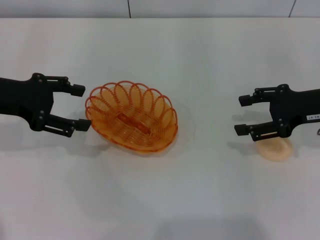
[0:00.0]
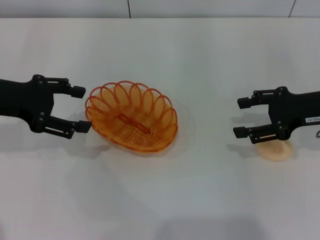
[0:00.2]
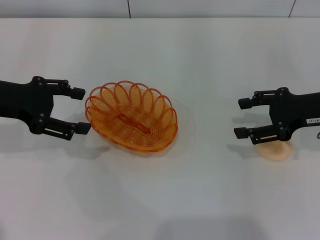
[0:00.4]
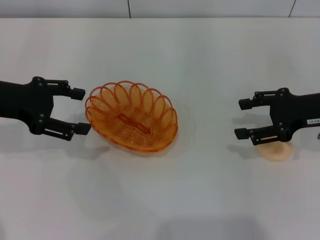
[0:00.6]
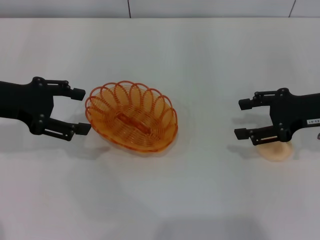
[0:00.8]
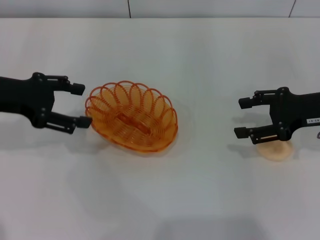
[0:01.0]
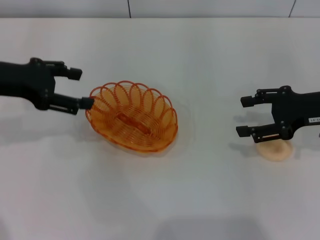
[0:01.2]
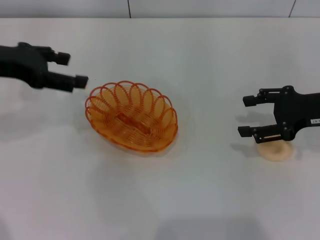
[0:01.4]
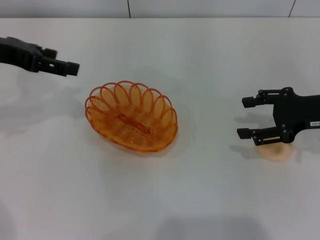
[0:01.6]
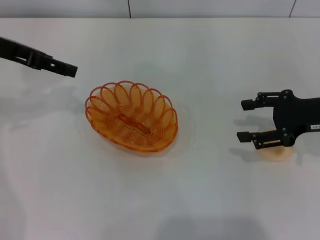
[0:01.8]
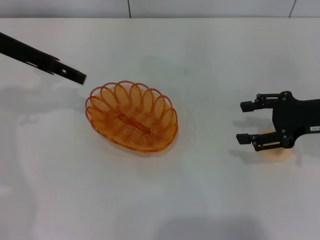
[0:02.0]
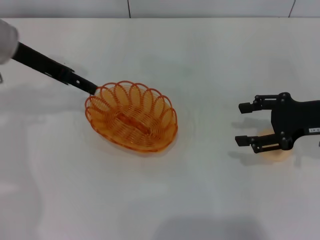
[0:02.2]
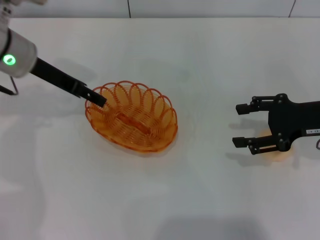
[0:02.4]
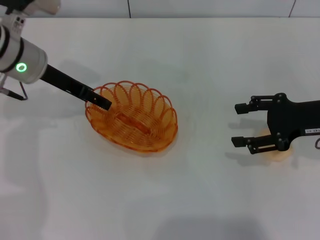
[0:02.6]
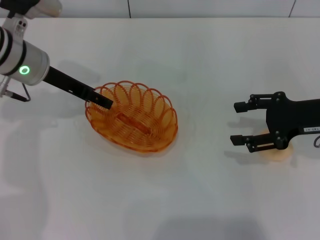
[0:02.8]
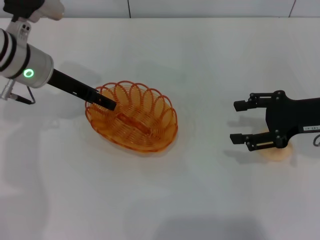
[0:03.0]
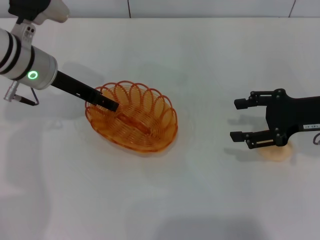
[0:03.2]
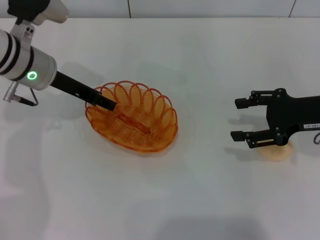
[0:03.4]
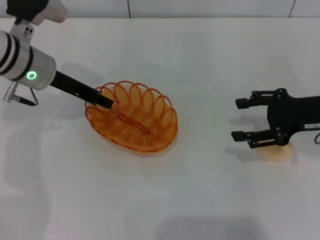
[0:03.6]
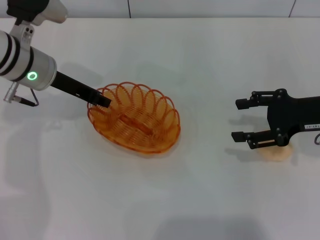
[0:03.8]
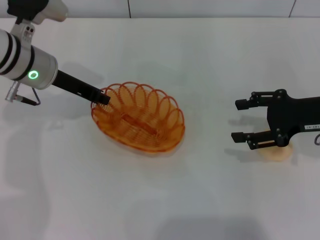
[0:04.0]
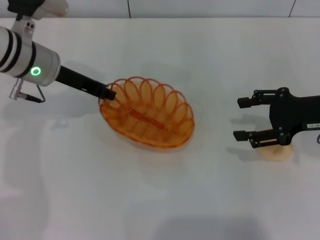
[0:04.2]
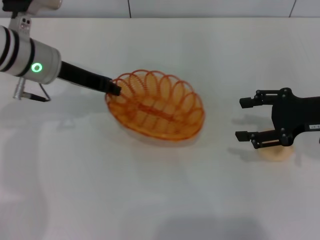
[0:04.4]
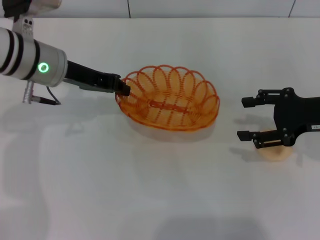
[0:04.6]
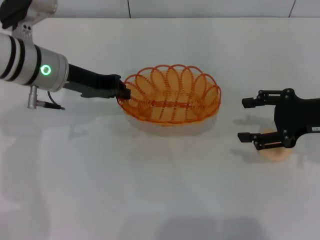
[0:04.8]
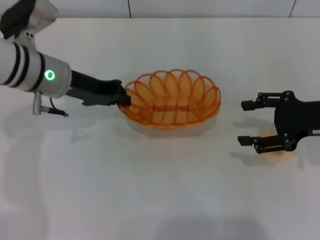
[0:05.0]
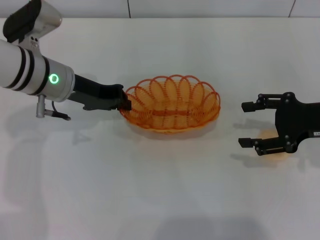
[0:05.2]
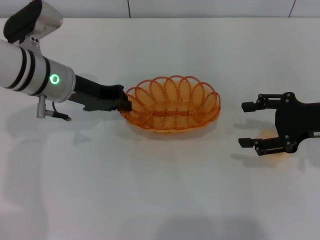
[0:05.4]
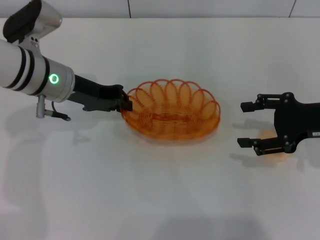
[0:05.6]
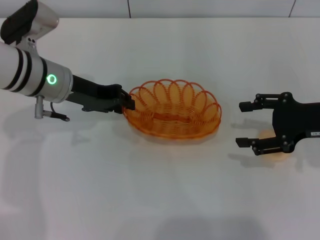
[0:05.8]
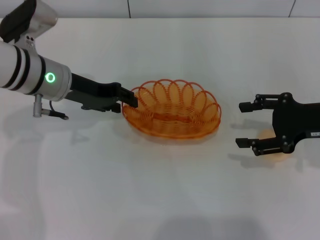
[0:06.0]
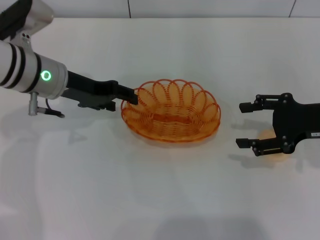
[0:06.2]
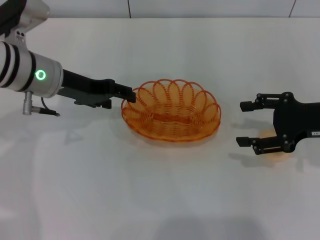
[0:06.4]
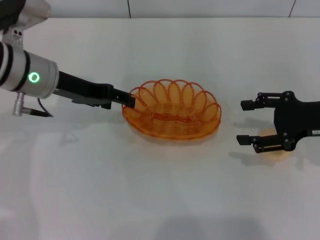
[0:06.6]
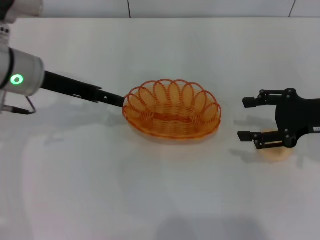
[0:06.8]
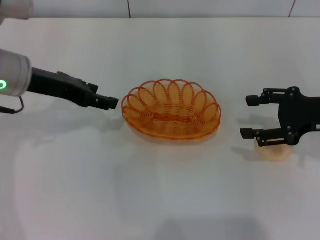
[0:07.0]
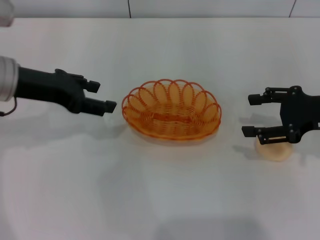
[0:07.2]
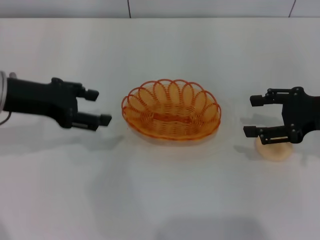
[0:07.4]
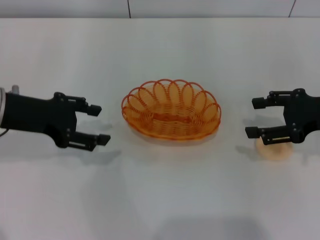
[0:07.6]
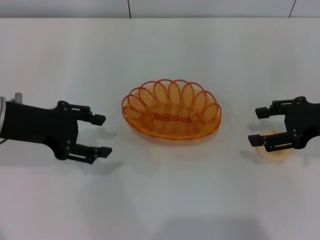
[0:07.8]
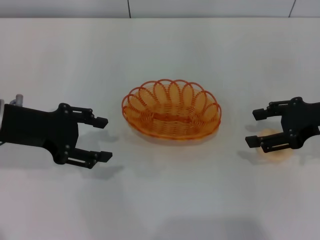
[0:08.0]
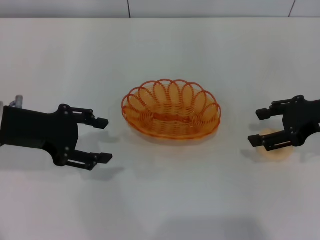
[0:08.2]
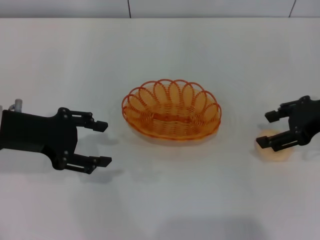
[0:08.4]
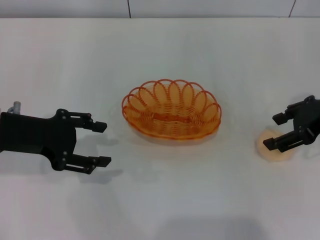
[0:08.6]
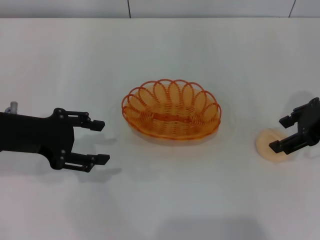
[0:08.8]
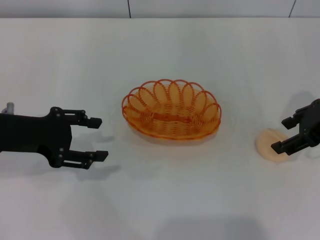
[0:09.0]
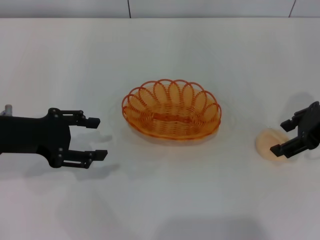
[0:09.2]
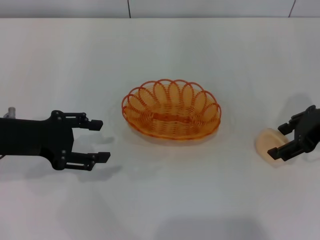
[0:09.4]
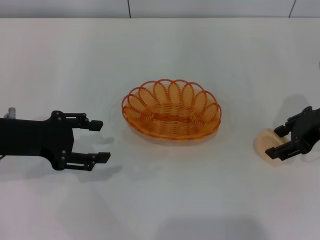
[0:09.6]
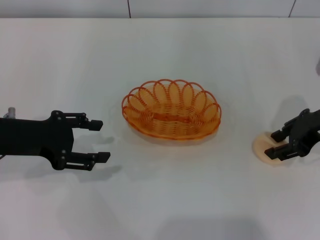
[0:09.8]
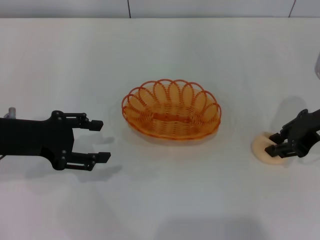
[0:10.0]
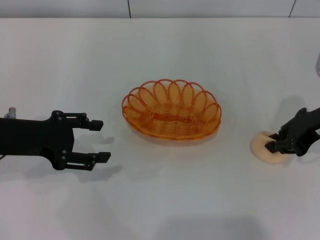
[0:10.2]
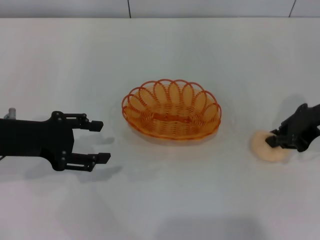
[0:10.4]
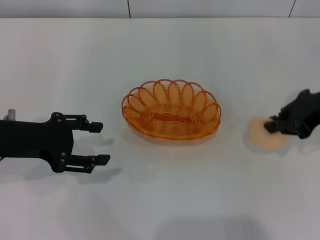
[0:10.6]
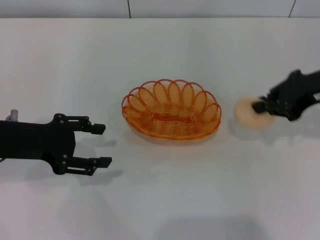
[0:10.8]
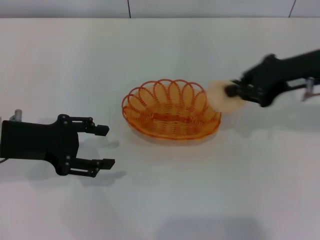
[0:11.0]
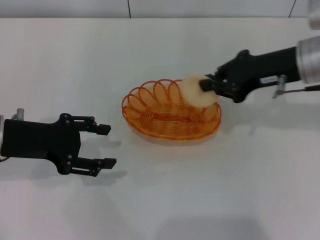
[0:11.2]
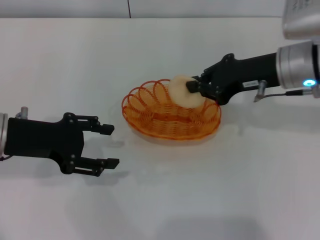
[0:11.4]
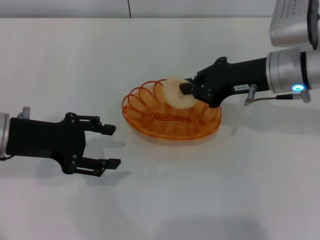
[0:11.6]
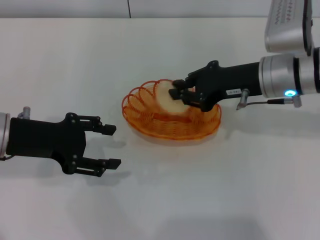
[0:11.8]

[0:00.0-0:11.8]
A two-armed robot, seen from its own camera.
Step, 0:00.0 to 0:04.6: Pick up the basket with the left gripper.
Step, 0:04.8 to 0:07.4: Place the basket in the center of view with the left gripper.
Step, 0:07.6 to 0:10.6: Pick up the egg yolk pastry with the right gripper.
0:00.0 to 0:01.4: The grippers move only a little.
0:01.4 to 0:03.0: The left gripper moves to the right, downward and forward, some 10 cm.
0:03.0 to 0:04.4: The left gripper closes its fingers.
0:06.0 to 0:07.4: The left gripper shifts roughly 10 cm to the left and backward, and opens its fingers.
0:08.8 to 0:10.4: The right gripper closes its fingers.
0:10.4 to 0:11.8: The right gripper moves to the left, roughly 10 cm.

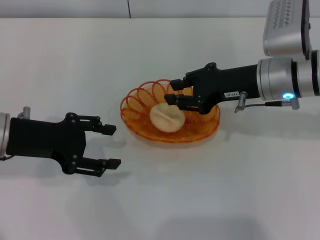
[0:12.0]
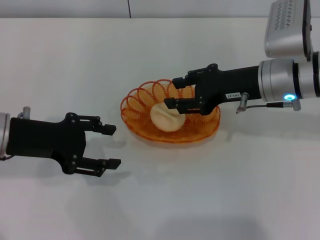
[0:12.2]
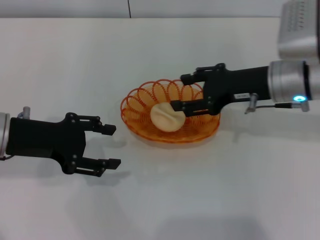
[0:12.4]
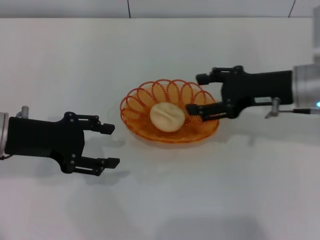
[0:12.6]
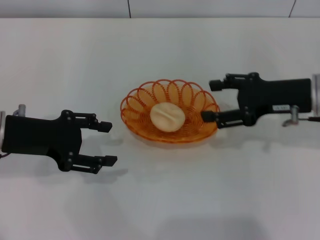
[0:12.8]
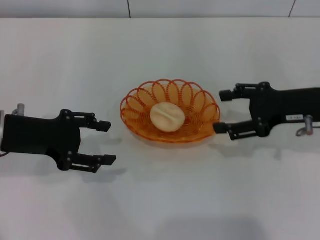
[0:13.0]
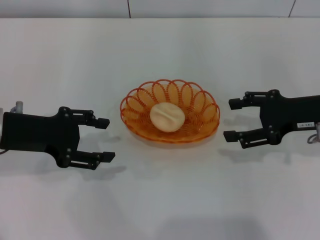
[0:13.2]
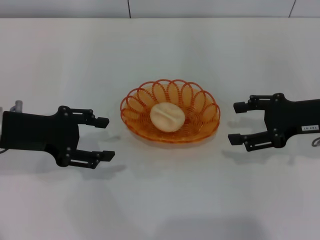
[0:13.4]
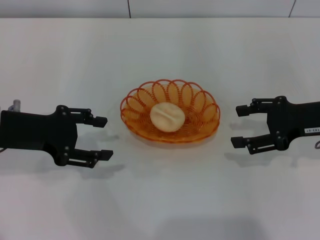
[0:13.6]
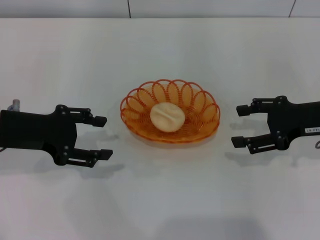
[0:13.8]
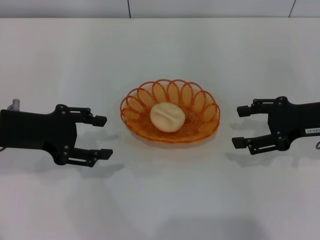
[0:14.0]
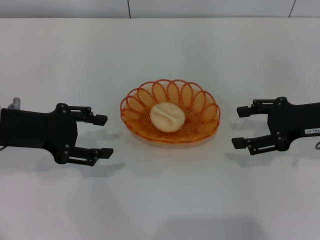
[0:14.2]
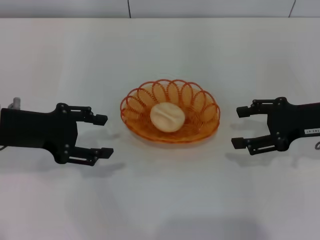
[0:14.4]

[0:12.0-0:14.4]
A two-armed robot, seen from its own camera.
0:12.0 to 0:13.2: The right gripper shifts some 10 cm to the right, and opens.
0:13.2 to 0:14.4: The two grippers keep their place.

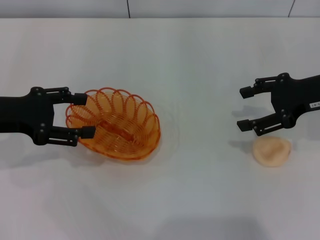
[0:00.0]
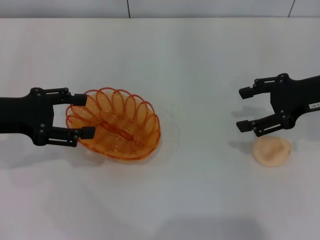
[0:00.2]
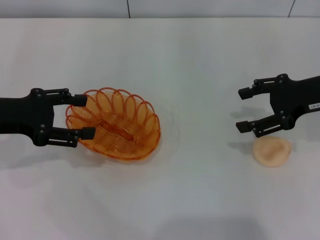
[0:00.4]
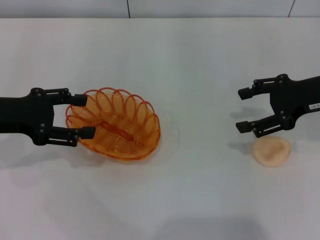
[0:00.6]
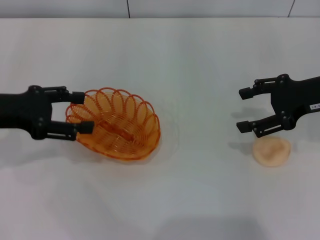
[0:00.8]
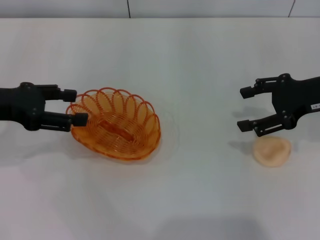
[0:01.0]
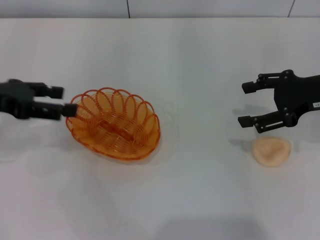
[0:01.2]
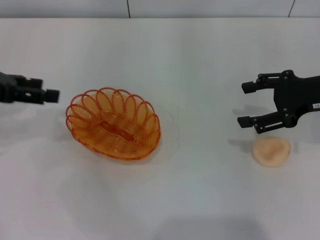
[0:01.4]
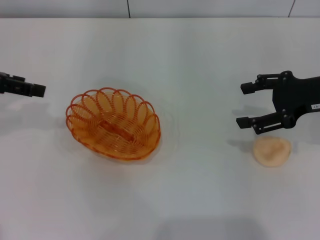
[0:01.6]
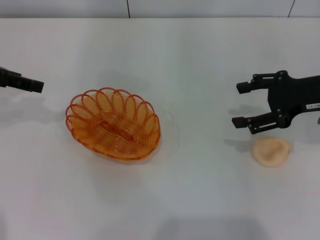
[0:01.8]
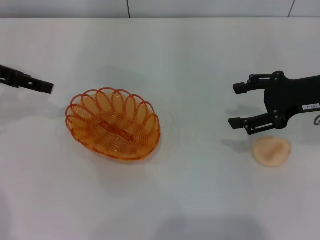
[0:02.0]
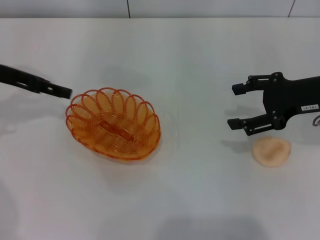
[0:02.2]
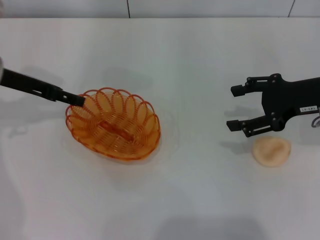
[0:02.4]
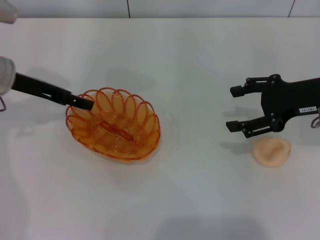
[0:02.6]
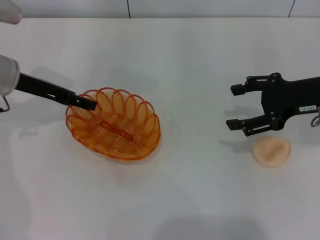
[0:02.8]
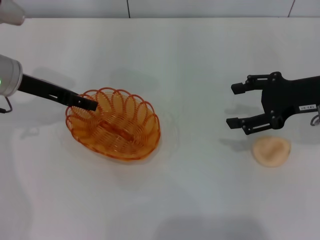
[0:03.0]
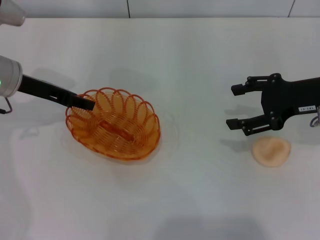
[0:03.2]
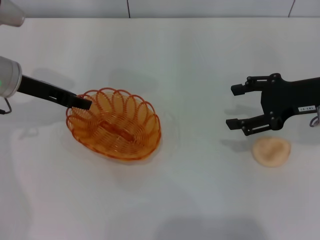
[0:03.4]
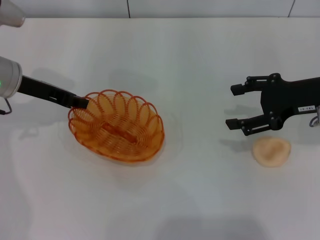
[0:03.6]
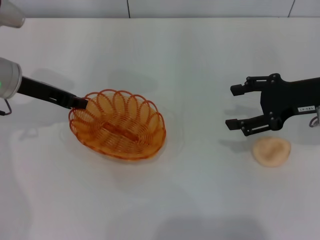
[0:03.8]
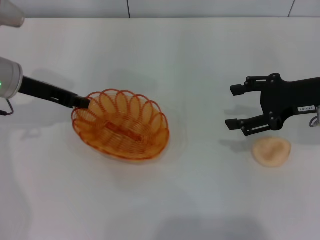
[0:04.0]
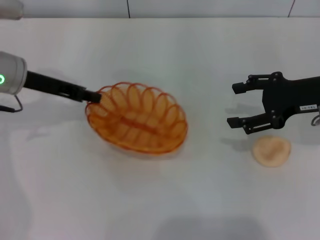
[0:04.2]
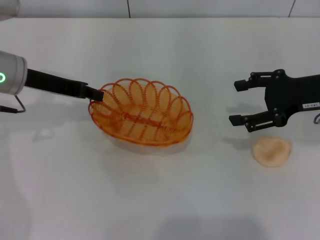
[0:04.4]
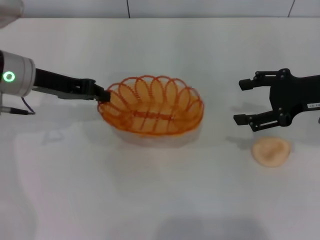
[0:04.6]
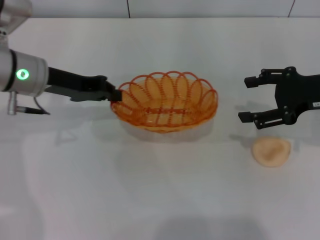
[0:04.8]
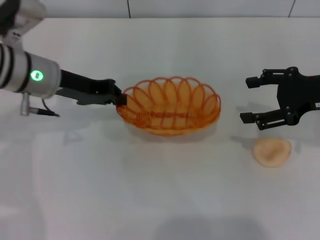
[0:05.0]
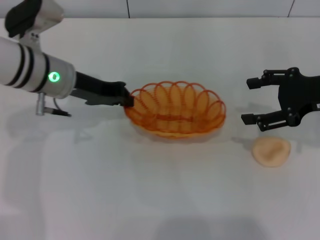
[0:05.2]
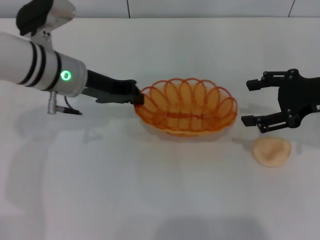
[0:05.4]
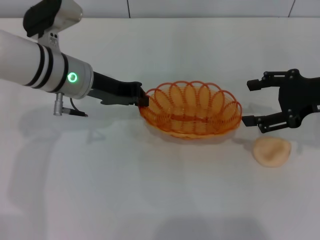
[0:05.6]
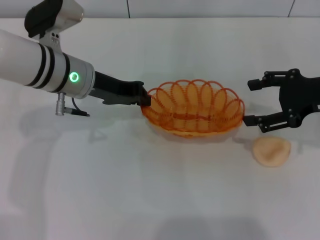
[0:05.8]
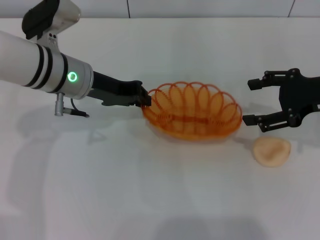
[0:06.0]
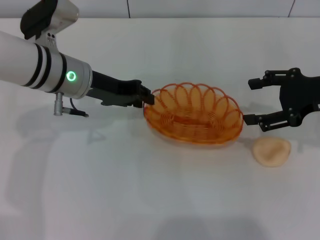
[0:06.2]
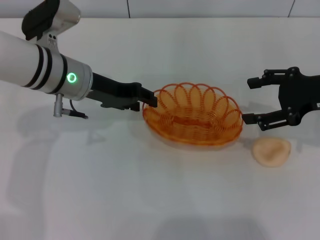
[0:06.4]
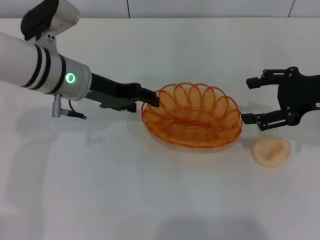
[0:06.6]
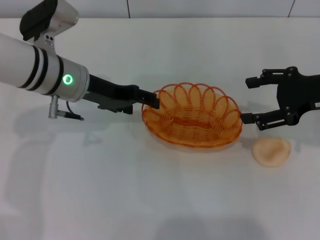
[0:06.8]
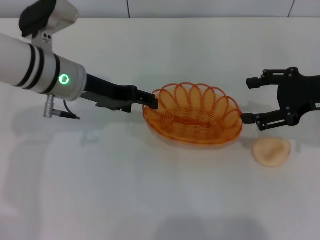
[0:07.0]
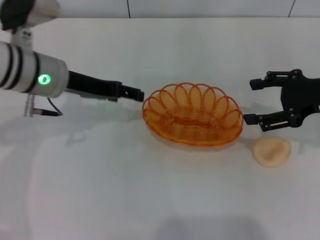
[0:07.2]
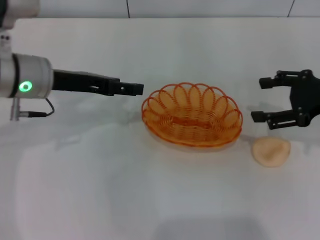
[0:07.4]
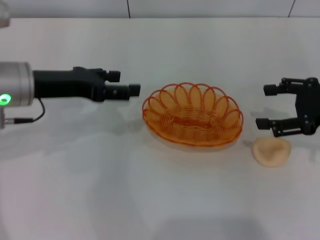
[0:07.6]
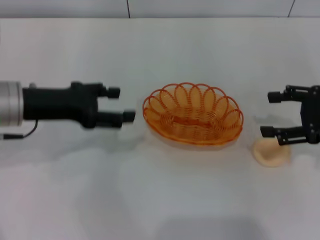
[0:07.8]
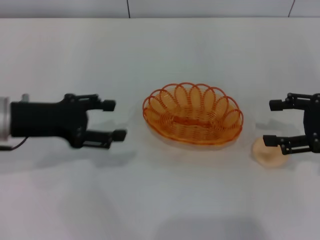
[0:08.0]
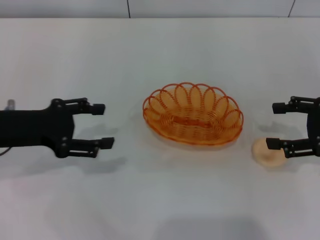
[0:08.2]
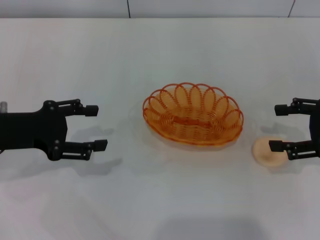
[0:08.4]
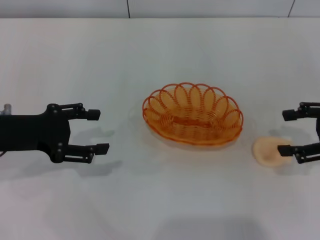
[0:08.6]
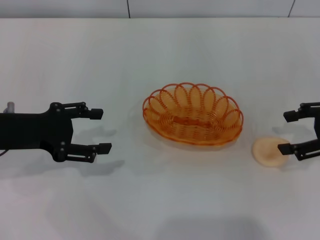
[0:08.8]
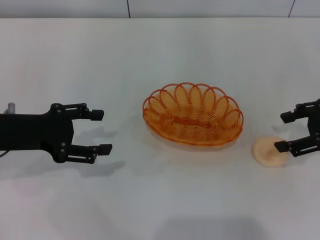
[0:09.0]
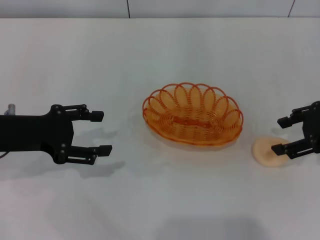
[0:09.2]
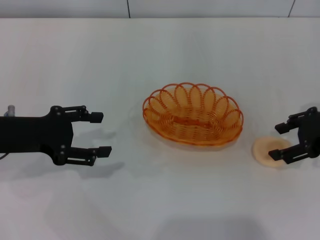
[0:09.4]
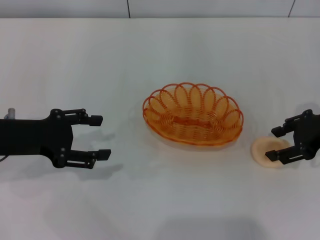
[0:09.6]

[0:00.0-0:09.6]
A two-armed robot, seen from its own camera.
Step, 0:00.0 to 0:04.4: Pick up the basket with the left gripper.
Step, 0:04.6 to 0:07.4: Place the basket in the center of view with the left gripper.
0:00.0 to 0:01.6: The left gripper shifts about 5 cm upward.
0:01.6 to 0:03.2: The left gripper travels to the right and downward by some 10 cm.
0:03.2 to 0:04.8: The left gripper closes up.
0:04.8 to 0:06.4: The left gripper shifts roughly 5 cm to the right.
0:06.4 to 0:08.0: The right gripper changes place by approximately 5 cm, while the left gripper is displaced to the left and backward by roughly 10 cm, and opens its fingers.
